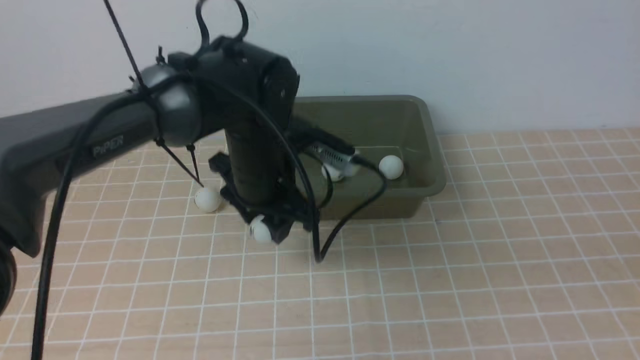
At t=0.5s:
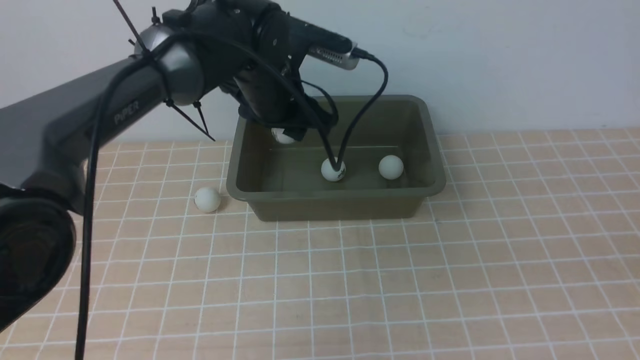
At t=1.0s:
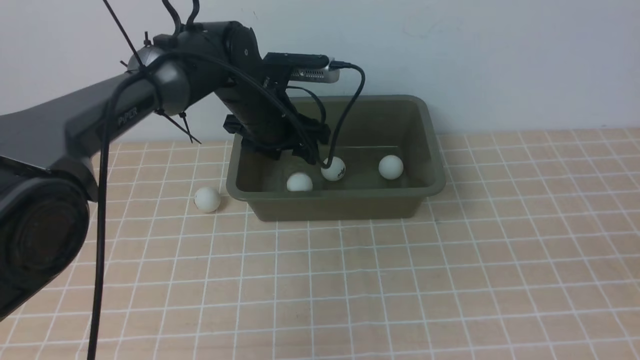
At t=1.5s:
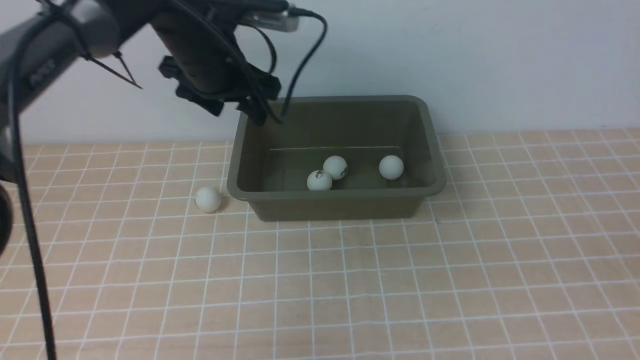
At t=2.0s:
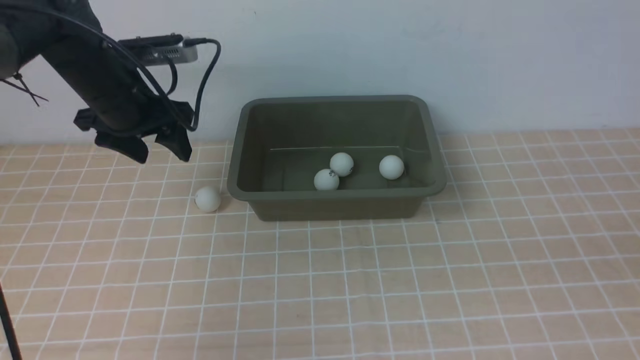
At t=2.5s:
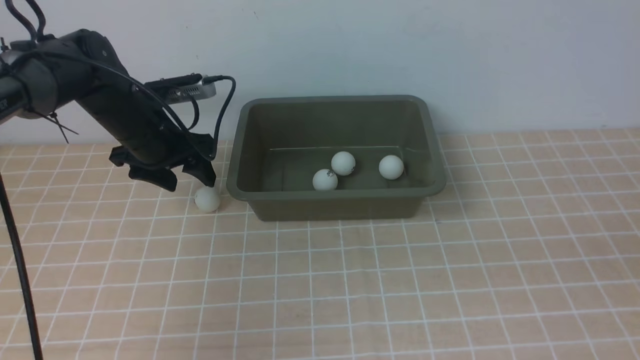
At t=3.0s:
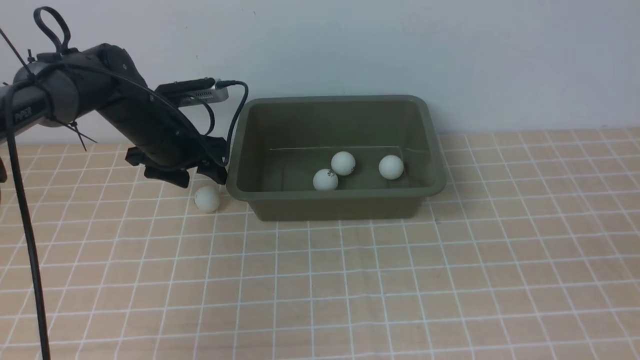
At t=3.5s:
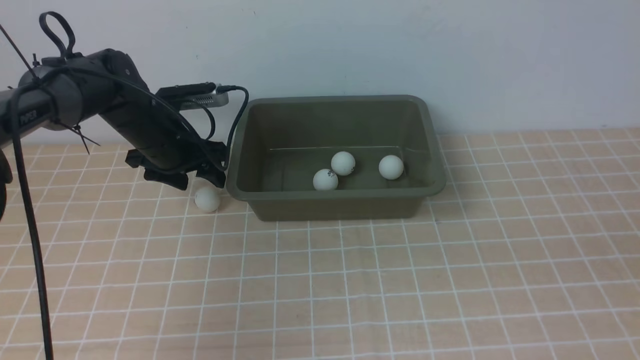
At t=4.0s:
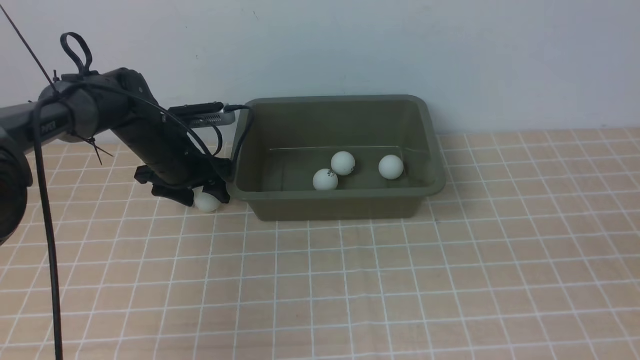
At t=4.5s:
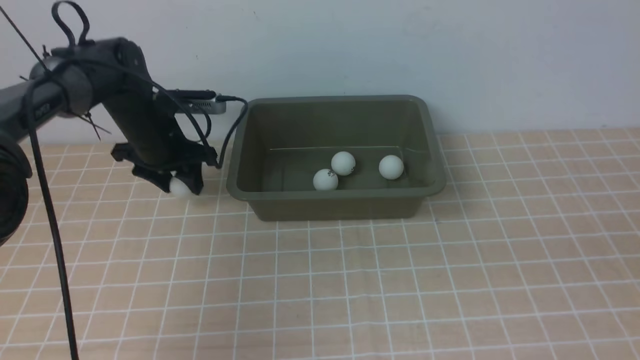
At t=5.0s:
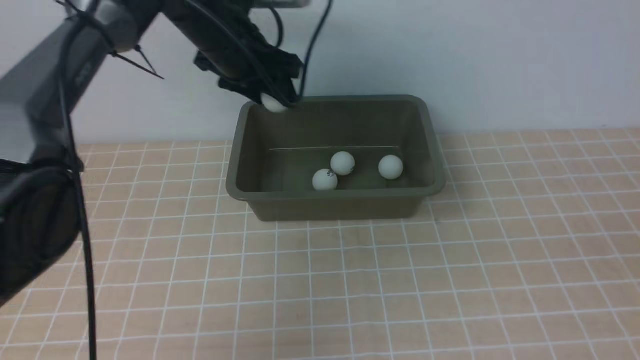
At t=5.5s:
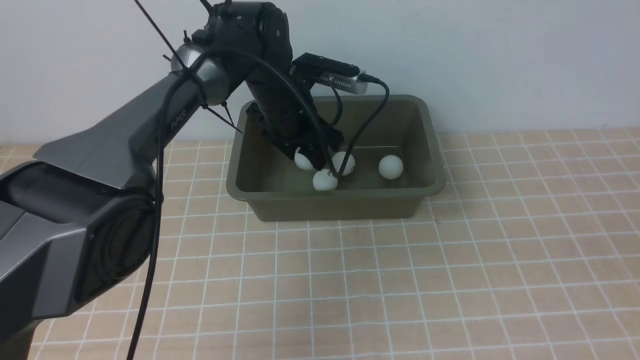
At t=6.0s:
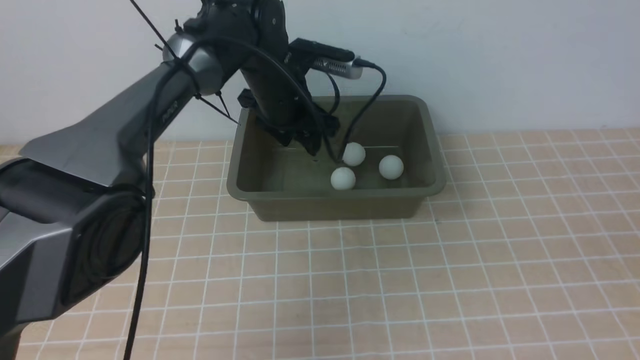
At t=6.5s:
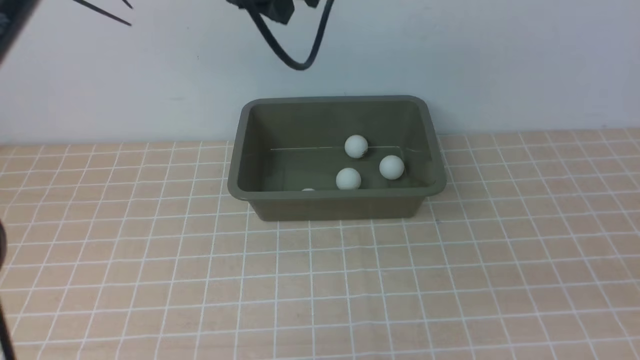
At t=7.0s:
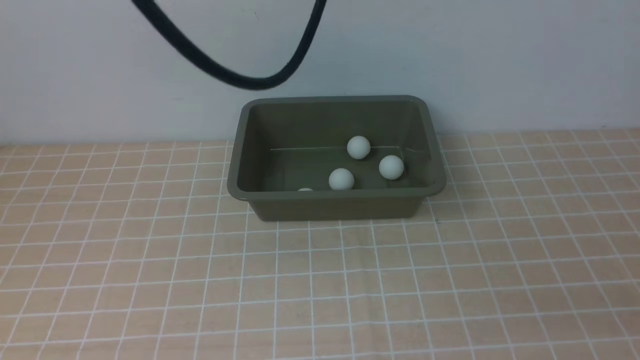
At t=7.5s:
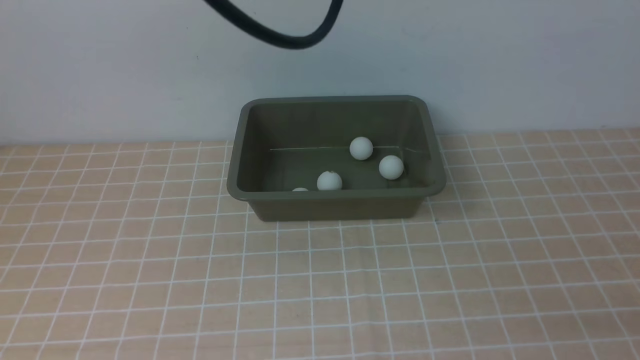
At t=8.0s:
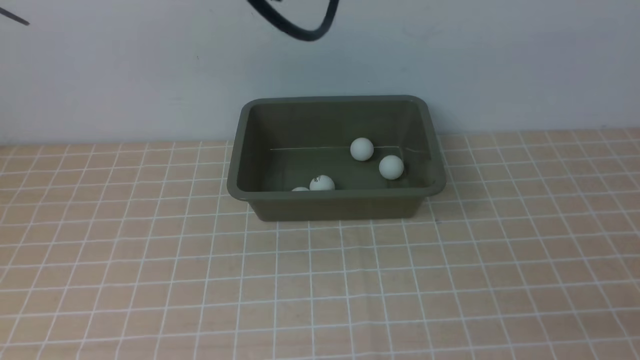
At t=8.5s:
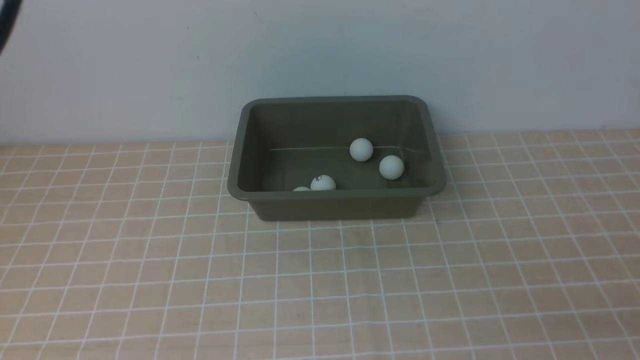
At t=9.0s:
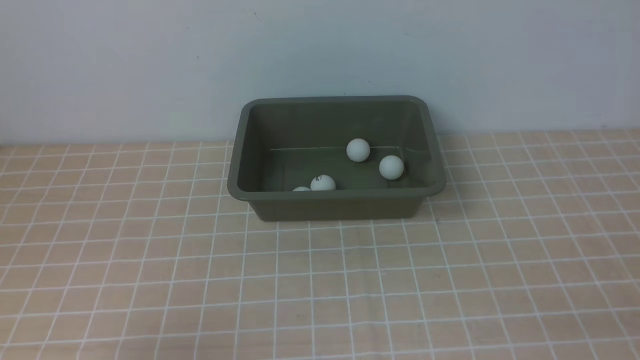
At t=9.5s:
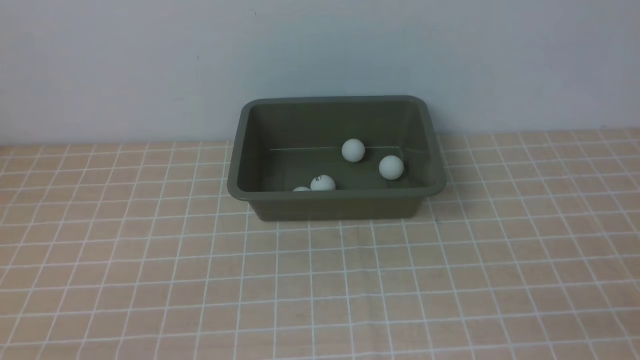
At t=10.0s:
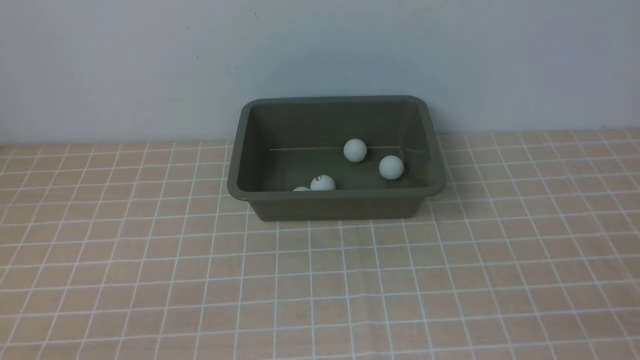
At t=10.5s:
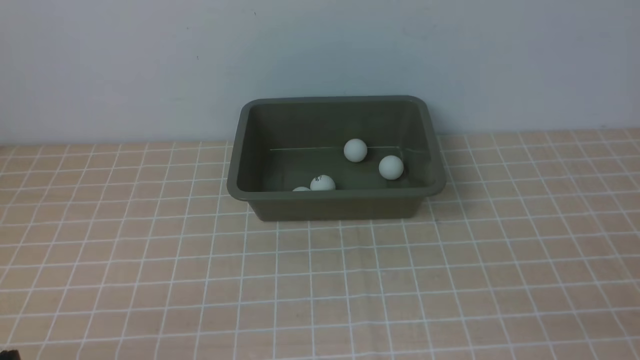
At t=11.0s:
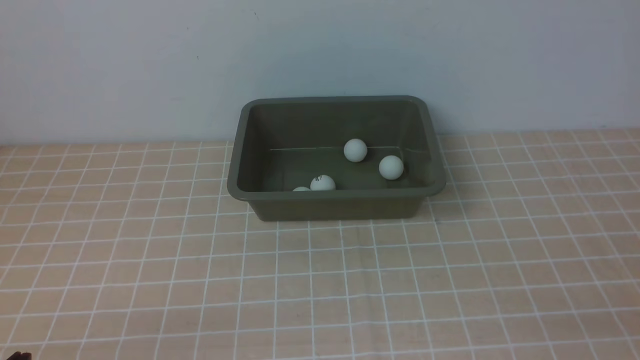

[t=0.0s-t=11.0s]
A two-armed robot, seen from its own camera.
Step, t=0.5s to t=1.5s: use the left arm to put the table tennis ball into the box.
Step, t=2.0s to t=5.0s: use the left arm to clamp the table tennis ball closest to it.
Step, t=5.5s to t=6.0s: use the left arm to put the table tennis ball into the box.
t=0.0s to t=2.0s: The left gripper heads to the left and forward, covering about 20 cm.
t=2.0s to t=3.5s: The left gripper heads downward, covering approximately 10 cm.
t=3.5s to t=5.5s: The left gripper is displaced to the right by about 15 cm.
t=5.5s to t=7.5s: The right gripper heads downward and to the right, covering some 10 cm. Meanwhile the left gripper travels upward and backward by roughly 30 cm, and closes its fingers.
t=7.5s to t=9.0s: The left gripper is displaced to the left, backward and downward by about 35 cm.

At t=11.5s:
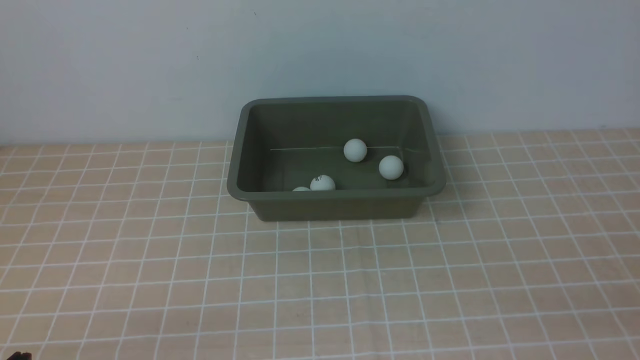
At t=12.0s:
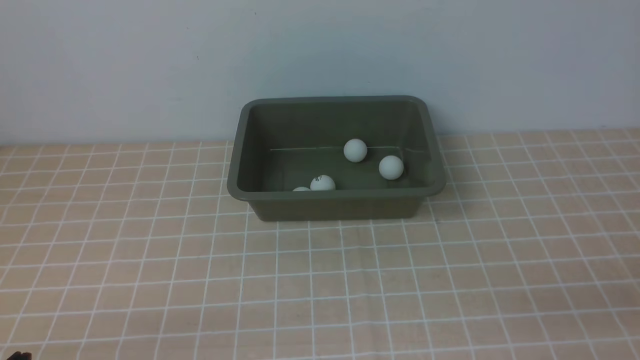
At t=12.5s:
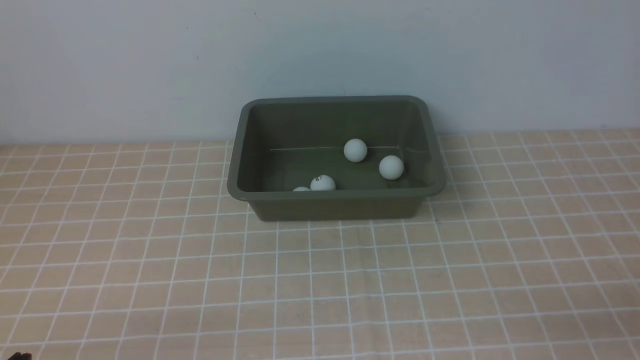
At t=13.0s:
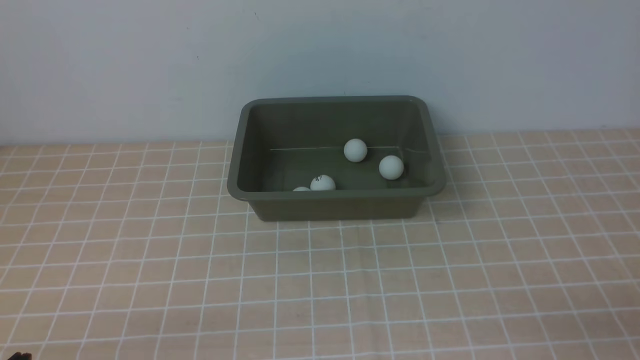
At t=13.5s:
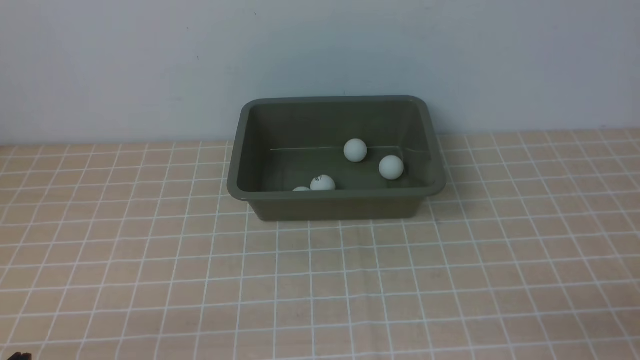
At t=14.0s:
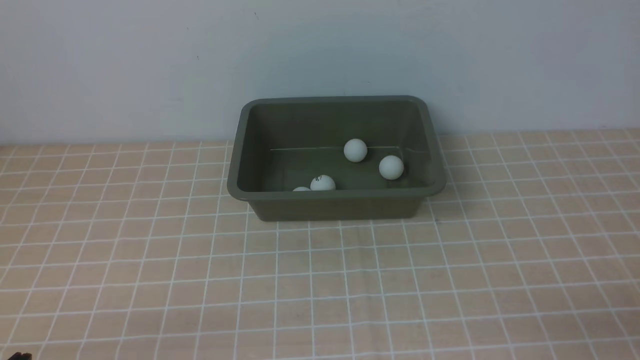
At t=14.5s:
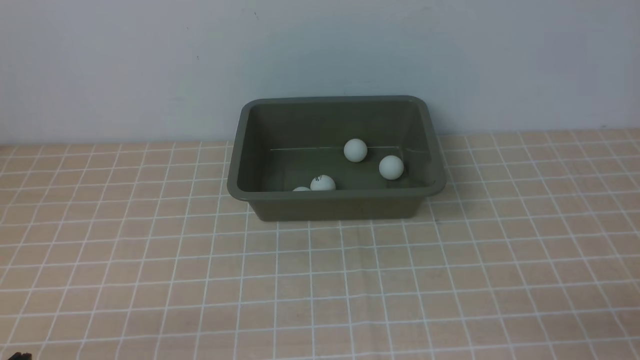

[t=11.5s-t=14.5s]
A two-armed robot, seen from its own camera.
t=13.0s to t=14.5s: Both grippers stay about where they are.
